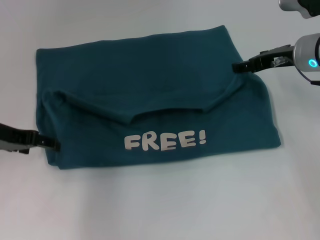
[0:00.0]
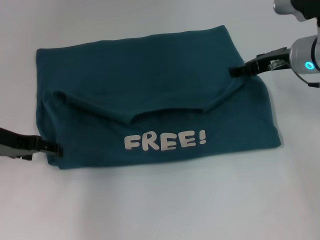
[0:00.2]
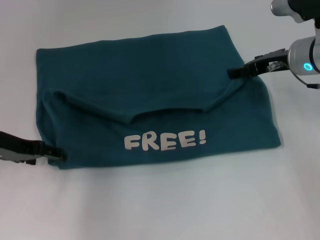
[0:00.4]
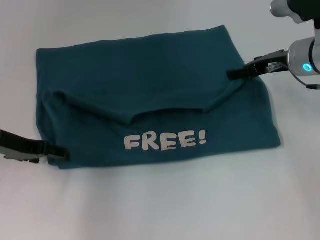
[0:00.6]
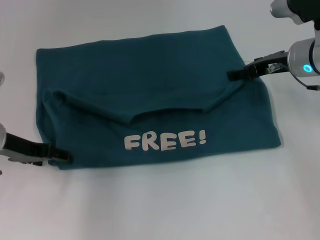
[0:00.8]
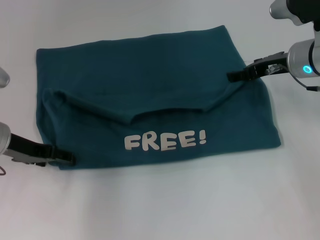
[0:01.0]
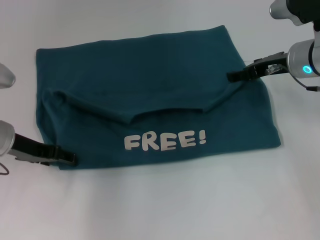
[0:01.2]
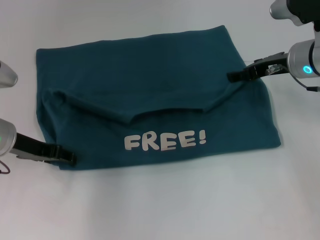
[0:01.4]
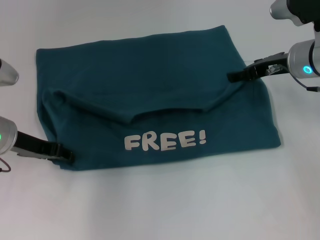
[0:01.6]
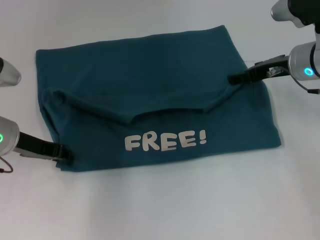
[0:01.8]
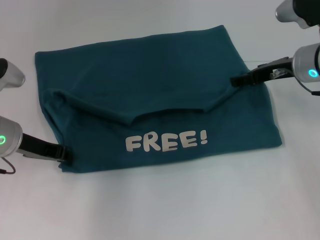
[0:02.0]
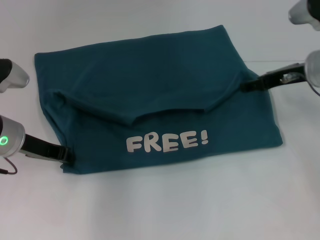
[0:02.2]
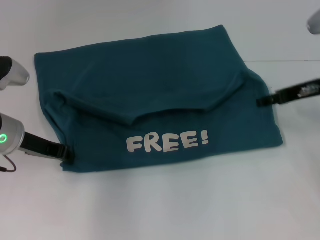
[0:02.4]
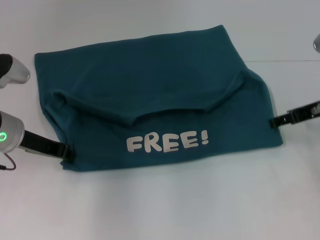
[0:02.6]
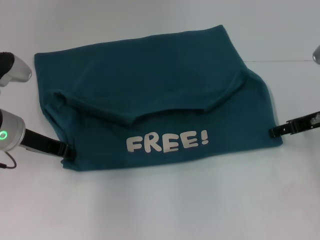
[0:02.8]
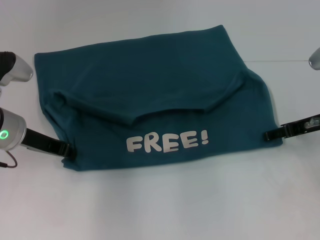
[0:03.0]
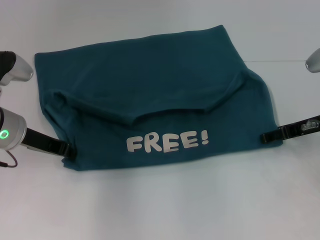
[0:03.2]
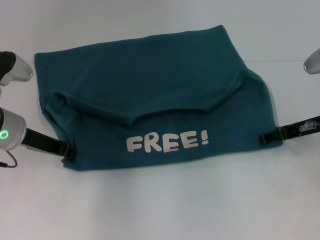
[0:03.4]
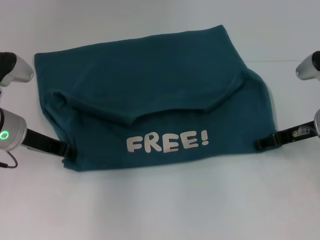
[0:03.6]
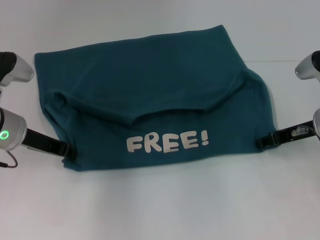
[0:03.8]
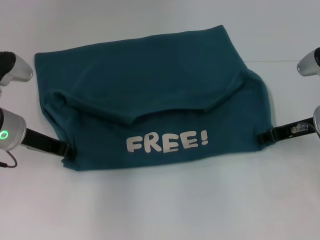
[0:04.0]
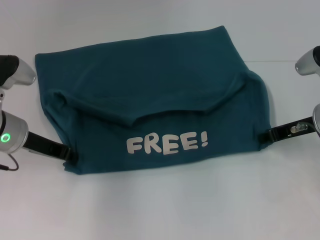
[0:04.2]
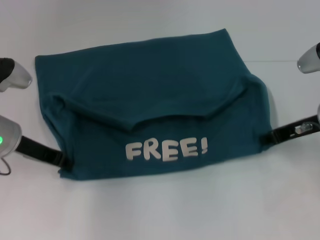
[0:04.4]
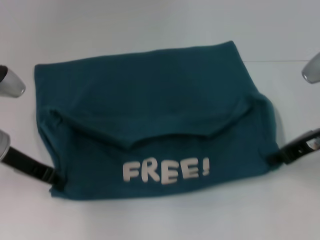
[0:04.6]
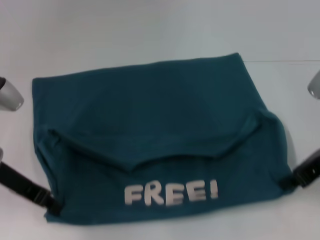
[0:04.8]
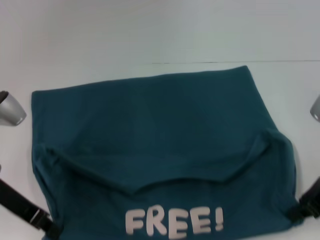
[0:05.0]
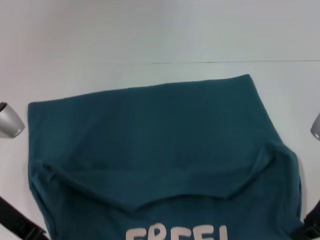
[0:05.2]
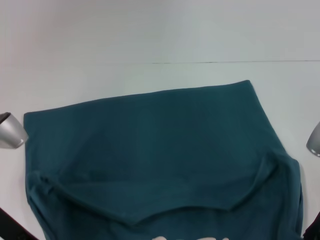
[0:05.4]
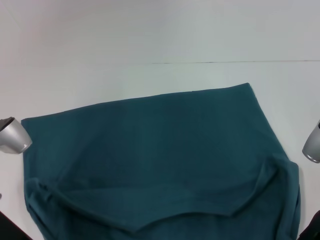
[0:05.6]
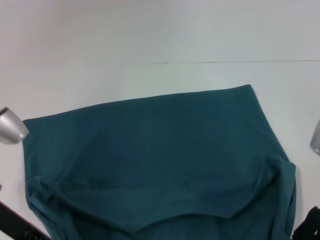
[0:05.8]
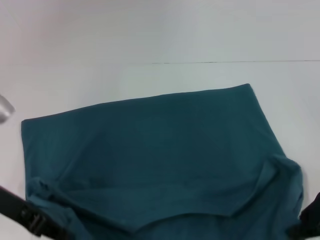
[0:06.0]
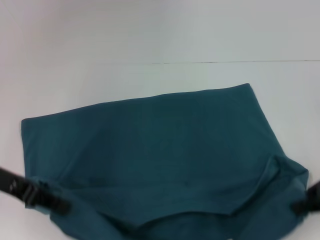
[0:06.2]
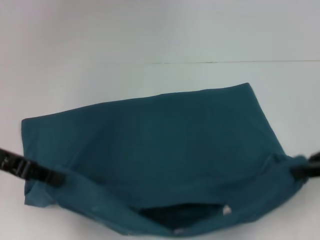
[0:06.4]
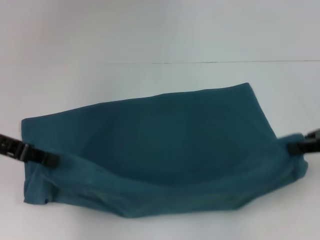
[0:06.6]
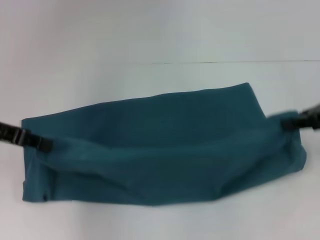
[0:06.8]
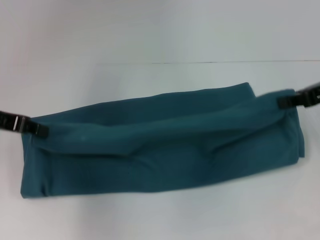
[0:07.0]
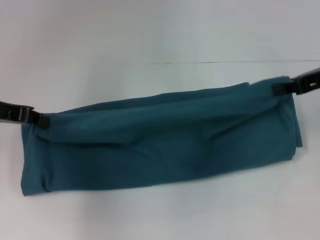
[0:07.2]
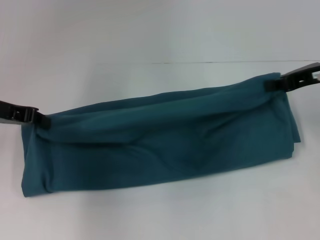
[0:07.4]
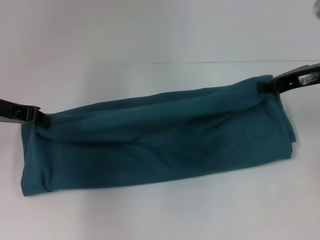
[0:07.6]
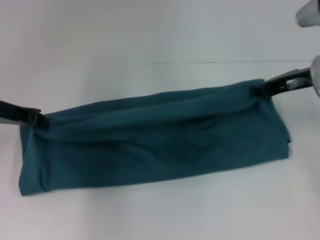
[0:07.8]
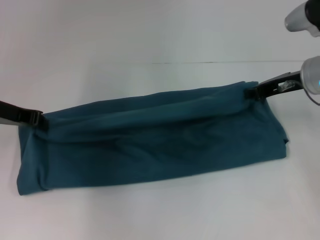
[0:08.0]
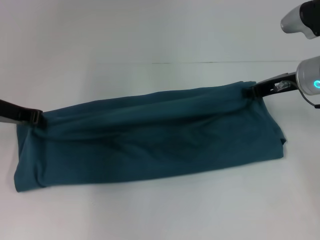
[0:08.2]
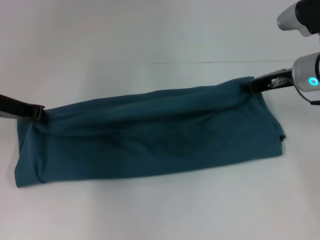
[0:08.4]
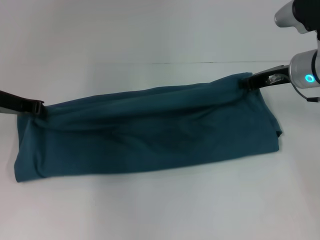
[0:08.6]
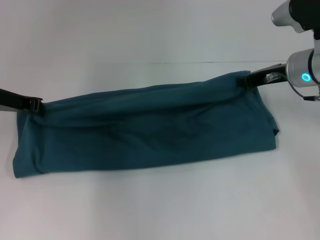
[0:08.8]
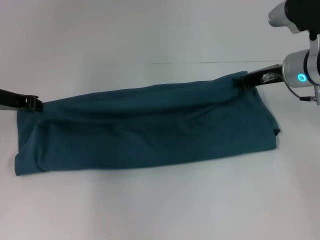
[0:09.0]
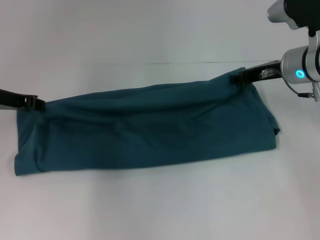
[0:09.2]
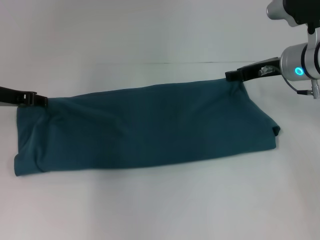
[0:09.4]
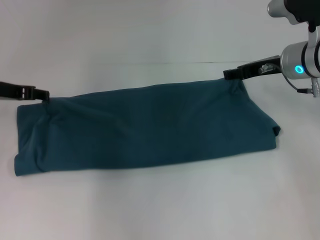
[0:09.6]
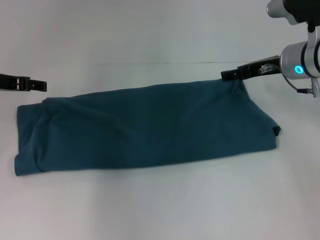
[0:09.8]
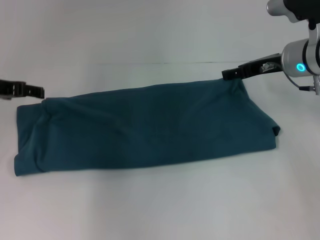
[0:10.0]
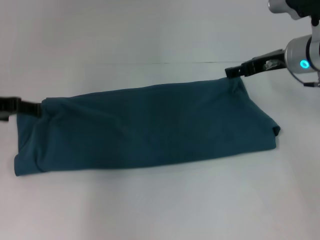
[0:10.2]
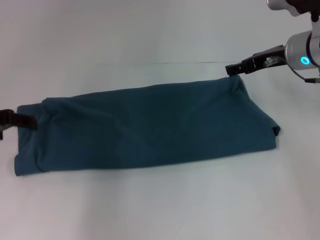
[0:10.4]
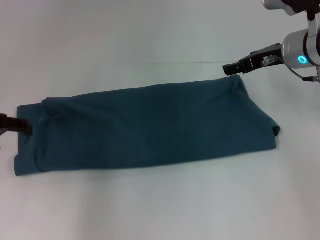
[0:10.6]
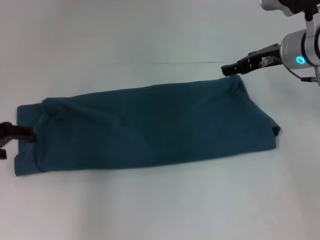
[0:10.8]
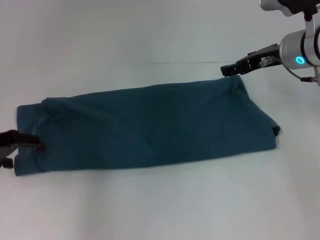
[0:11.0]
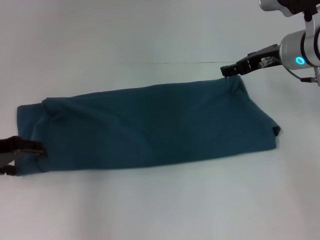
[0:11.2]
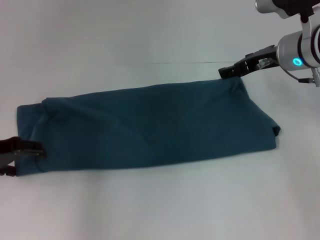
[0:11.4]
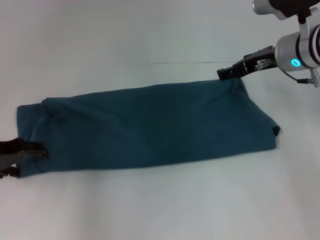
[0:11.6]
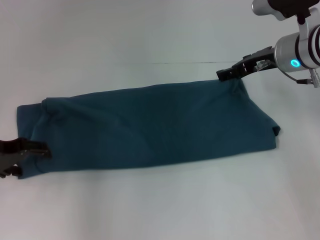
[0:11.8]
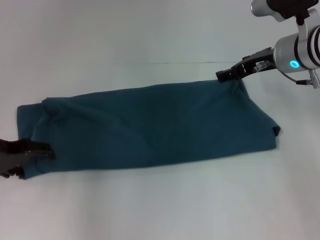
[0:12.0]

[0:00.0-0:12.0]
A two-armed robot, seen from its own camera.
Step, 0:00.0 to 0:05.2: Pull the clothes with your left hand.
Step, 0:00.0 to 0:05.2: Pull the clothes with your right hand.
Step, 0:05.4 to 0:09.4: Fold the clothes to the left.
Step, 0:05.4 to 0:09.4: Fold the clothes to the right.
0:00.0 to 0:01.6: There are only small adjustments of the grippers.
0:01.6 to 0:03.0: The right gripper shifts some 10 cm backward and to the right. The left gripper closes up.
0:03.0 to 0:04.4: The right gripper closes.
0:04.4 to 0:06.0: The grippers both shift backward by some 10 cm.
0:06.0 to 0:07.6: Both grippers travel together forward, some 10 cm.
0:07.6 to 0:09.0: The right gripper shifts by about 5 cm.
0:09.0 to 0:10.4: The right gripper opens its fingers; the left gripper travels backward by about 5 cm, and opens its fingers.
0:10.4 to 0:12.0: The left gripper is displaced downward by roughly 5 cm.

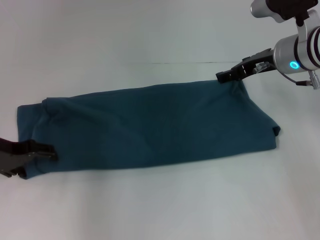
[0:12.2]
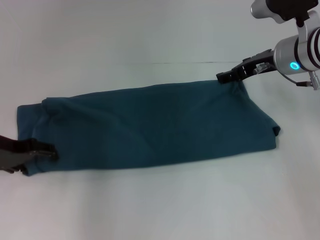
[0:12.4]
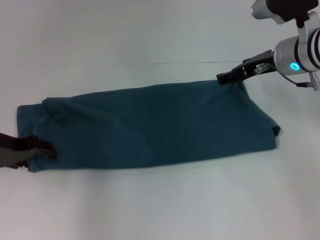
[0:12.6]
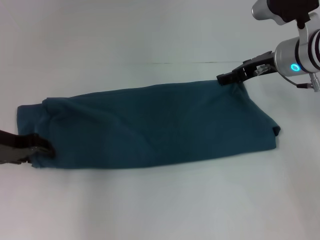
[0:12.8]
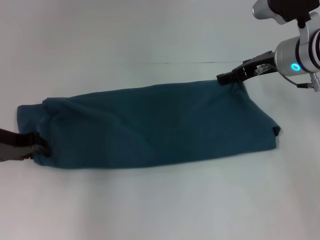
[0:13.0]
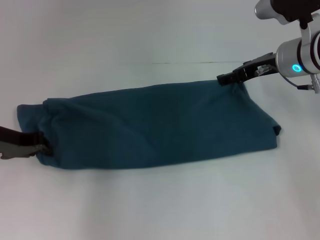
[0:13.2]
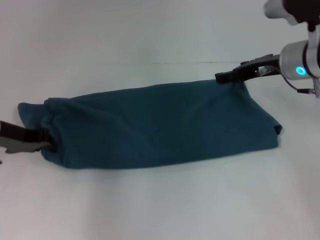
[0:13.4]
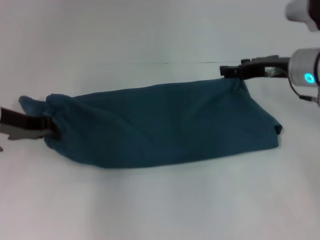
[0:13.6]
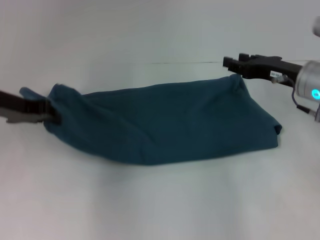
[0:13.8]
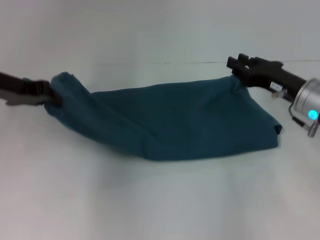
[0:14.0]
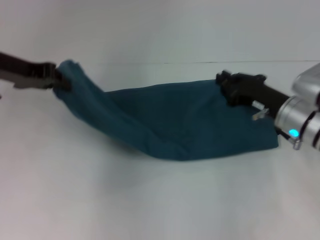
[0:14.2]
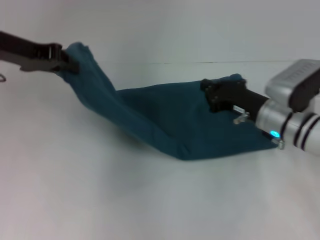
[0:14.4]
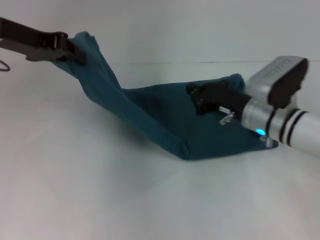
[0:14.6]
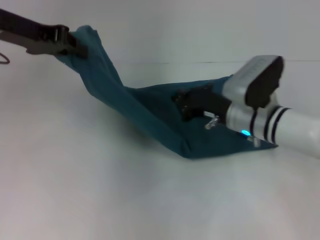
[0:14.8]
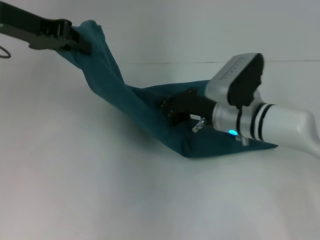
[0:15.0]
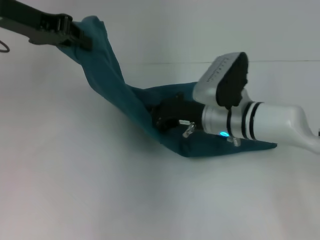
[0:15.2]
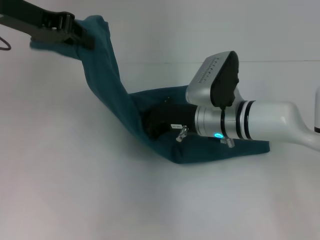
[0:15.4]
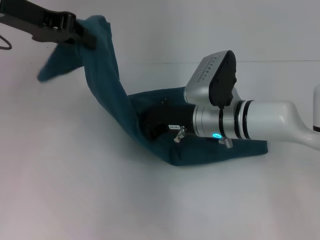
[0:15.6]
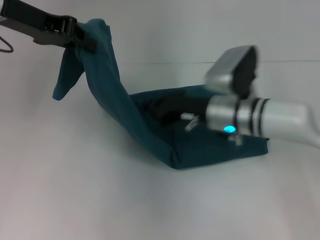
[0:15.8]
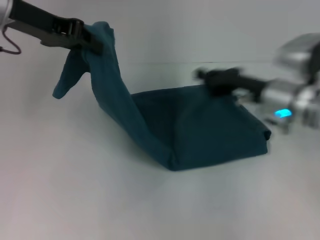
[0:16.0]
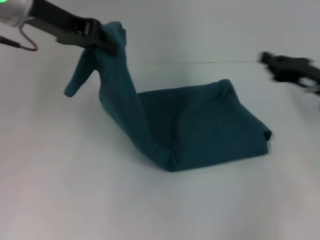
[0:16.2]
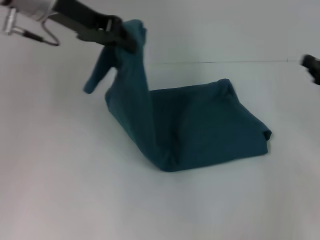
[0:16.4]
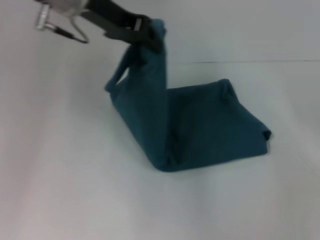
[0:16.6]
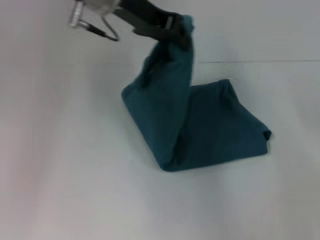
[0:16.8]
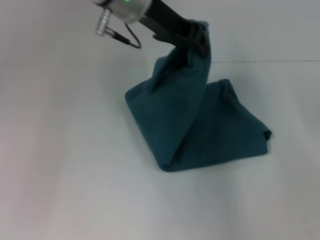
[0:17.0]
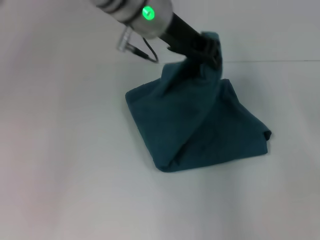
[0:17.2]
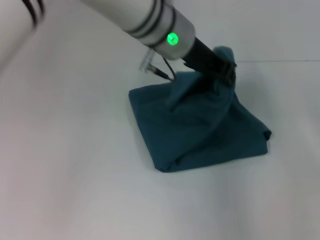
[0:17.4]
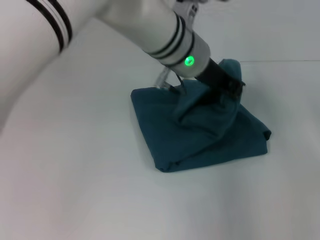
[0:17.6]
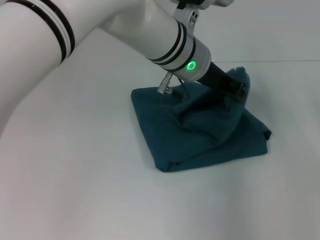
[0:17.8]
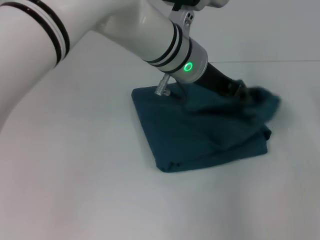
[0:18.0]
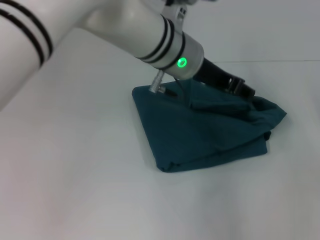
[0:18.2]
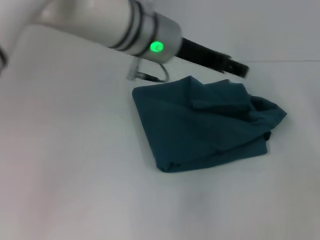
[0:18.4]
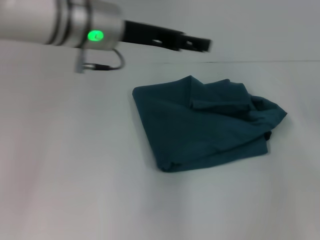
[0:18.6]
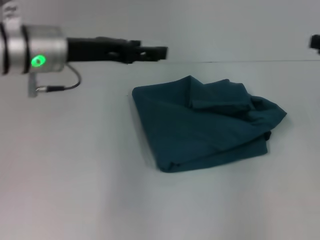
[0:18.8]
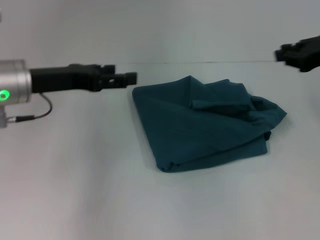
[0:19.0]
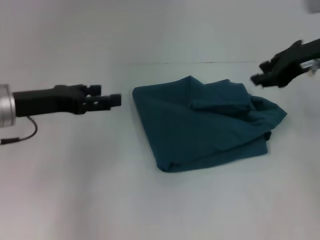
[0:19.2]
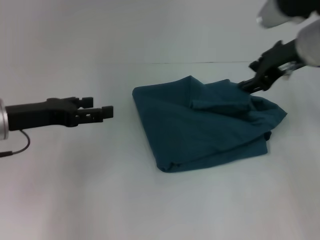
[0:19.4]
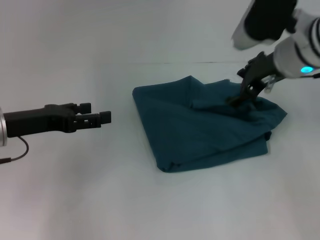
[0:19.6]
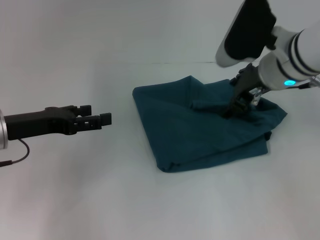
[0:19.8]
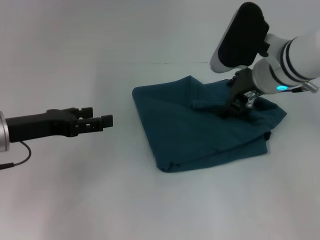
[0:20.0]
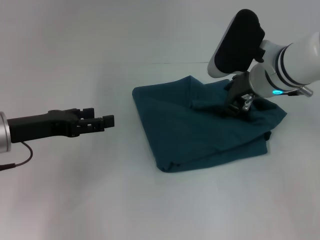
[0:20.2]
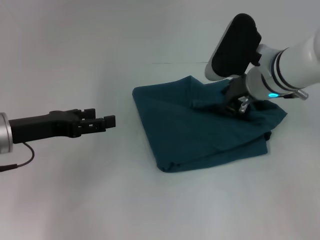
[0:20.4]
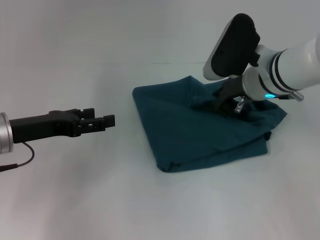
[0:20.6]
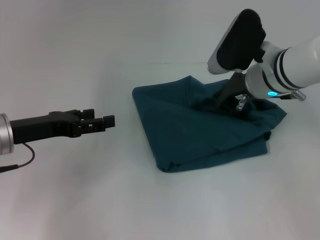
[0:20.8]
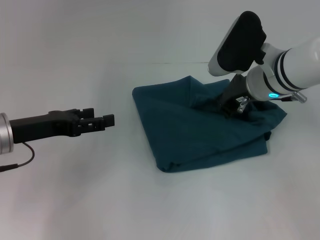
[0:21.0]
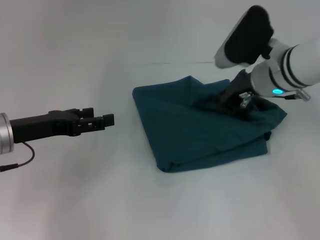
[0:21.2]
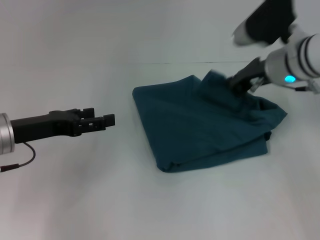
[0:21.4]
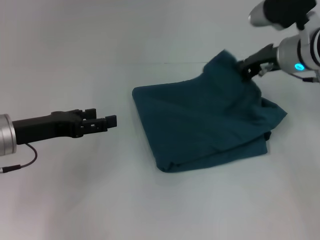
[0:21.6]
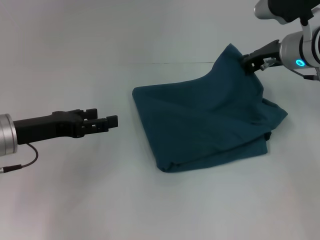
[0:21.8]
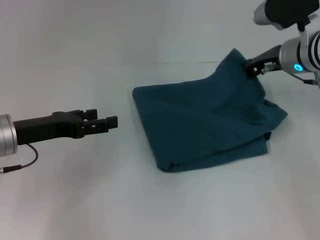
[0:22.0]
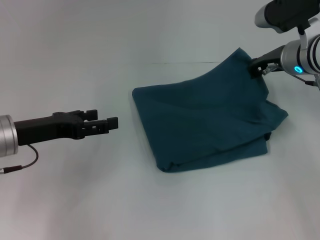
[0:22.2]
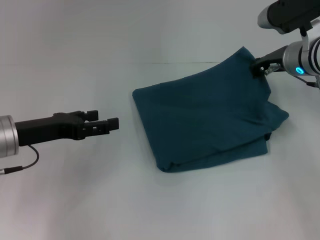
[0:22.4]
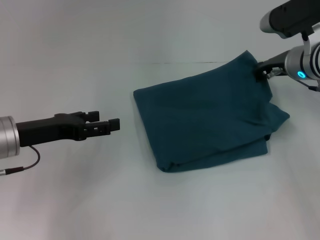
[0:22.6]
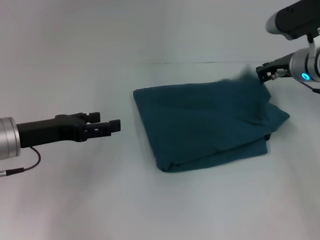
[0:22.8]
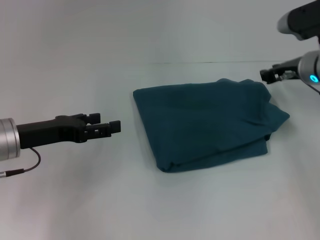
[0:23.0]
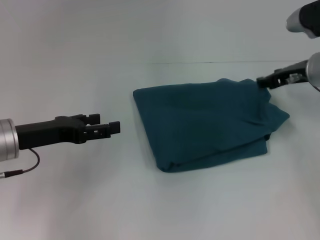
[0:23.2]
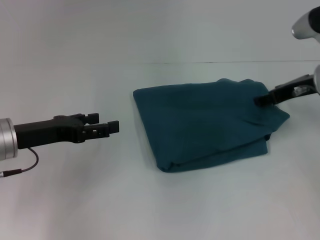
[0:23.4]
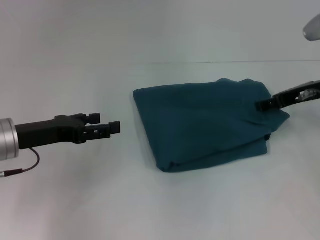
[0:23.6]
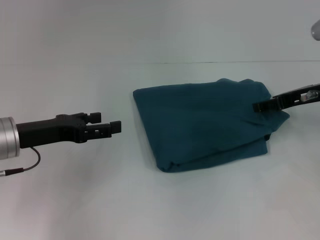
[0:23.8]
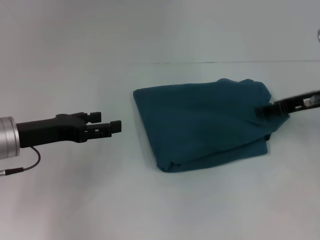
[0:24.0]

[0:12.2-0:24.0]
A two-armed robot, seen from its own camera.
Step, 0:12.2 to 0:15.6: Press the middle of the clothes with your right hand.
Step, 0:15.8 to 0:18.0: Fold the clothes to the left.
0:12.2 to 0:13.6: The left gripper closes.
0:13.6 to 0:15.2: The left gripper moves upward, about 15 cm. Meanwhile the right gripper shifts approximately 15 cm to the left and downward, and closes its fingers.
0:15.2 to 0:16.6: The right gripper goes approximately 25 cm to the right. Meanwhile the left gripper goes about 10 cm to the right.
0:16.6 to 0:18.2: The left gripper goes some 15 cm to the right and downward.
0:18.2 to 0:19.6: The right gripper shifts about 25 cm to the left and upward, and opens its fingers. The left gripper heads to the left, covering approximately 25 cm, and opens up.
0:19.6 to 0:21.0: The right gripper goes roughly 5 cm downward, and closes up.
0:21.0 to 0:22.6: The right gripper moves to the right, roughly 5 cm.
0:22.6 to 0:24.0: The right gripper moves backward and to the right, roughly 10 cm, and opens.
